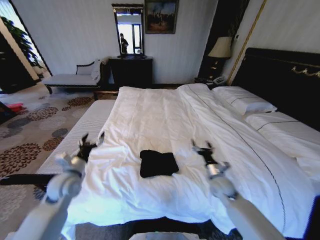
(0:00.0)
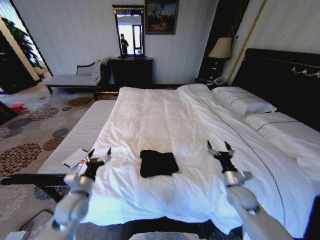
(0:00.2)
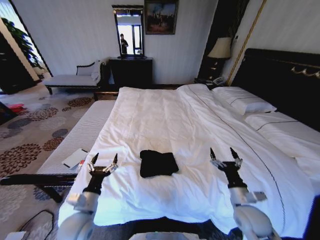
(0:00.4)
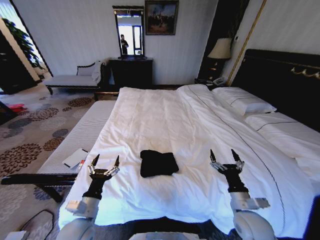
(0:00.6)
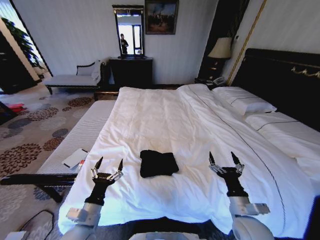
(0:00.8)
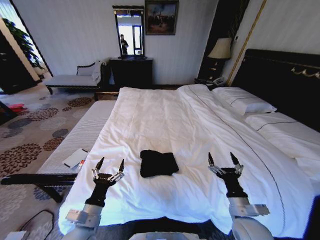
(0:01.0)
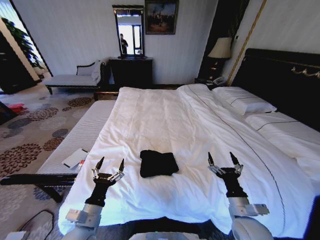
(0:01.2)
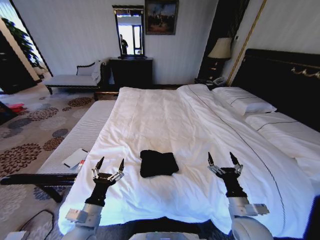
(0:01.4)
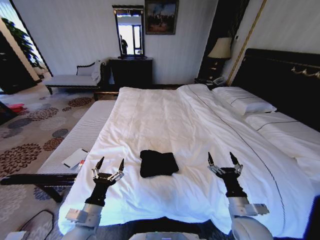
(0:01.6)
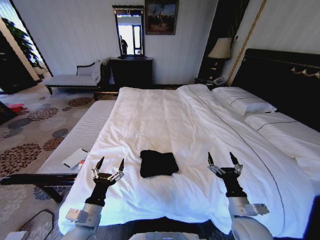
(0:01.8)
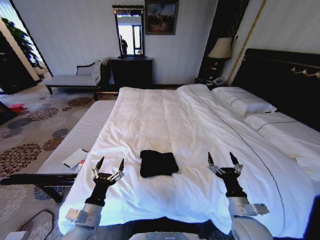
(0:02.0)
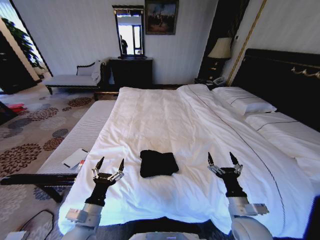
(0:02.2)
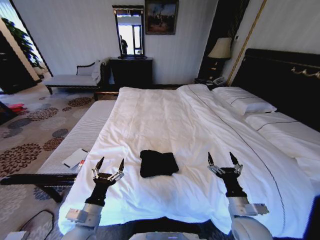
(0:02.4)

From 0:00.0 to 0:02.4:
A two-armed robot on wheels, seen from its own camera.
Task of the whole recording: Fold the clothes on the bed.
From 0:00.0 to 0:01.2: The right gripper heads backward, covering some 15 cm. Meanwhile the left gripper shifts approximately 20 cm backward and to the right.
From 0:01.2 to 0:02.4: Both grippers stay about where they are.

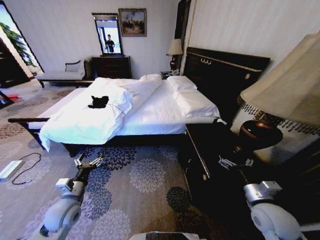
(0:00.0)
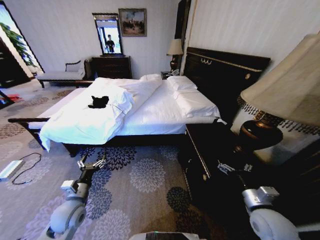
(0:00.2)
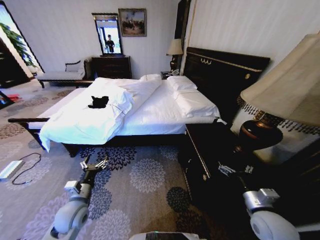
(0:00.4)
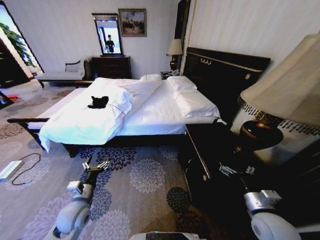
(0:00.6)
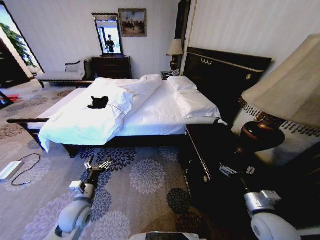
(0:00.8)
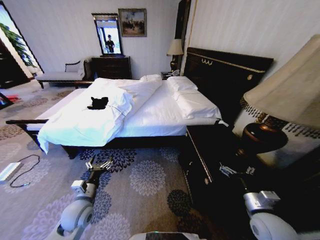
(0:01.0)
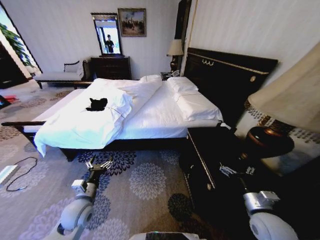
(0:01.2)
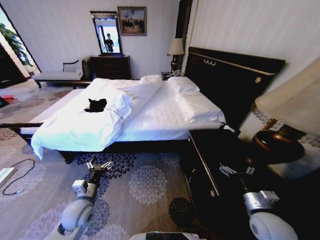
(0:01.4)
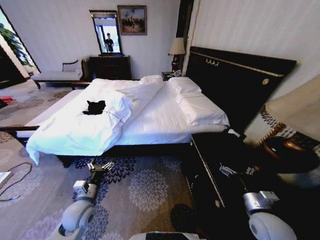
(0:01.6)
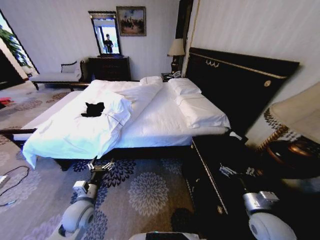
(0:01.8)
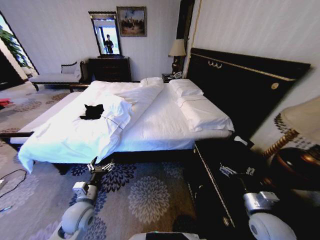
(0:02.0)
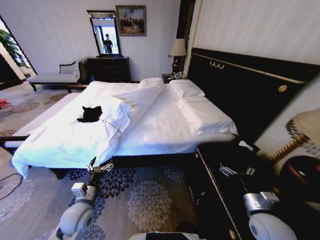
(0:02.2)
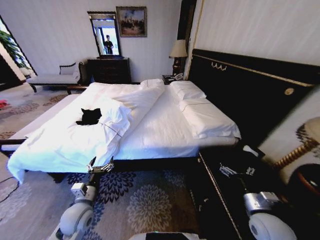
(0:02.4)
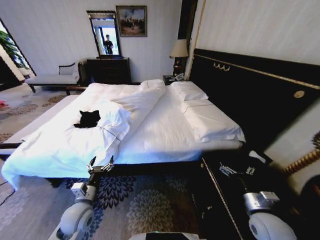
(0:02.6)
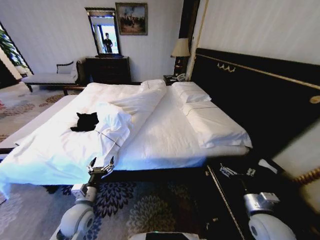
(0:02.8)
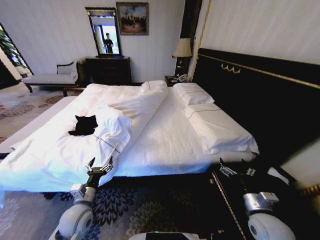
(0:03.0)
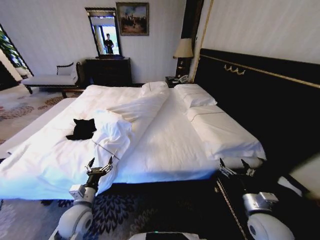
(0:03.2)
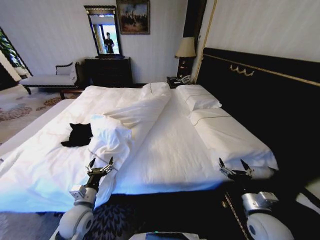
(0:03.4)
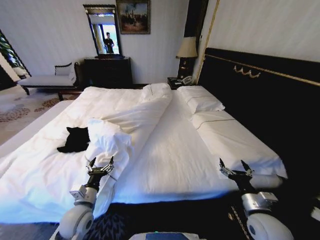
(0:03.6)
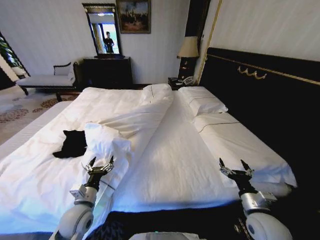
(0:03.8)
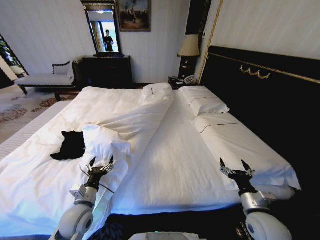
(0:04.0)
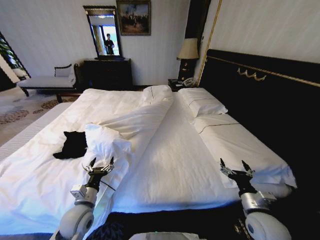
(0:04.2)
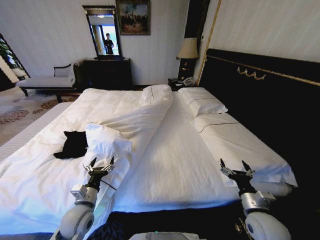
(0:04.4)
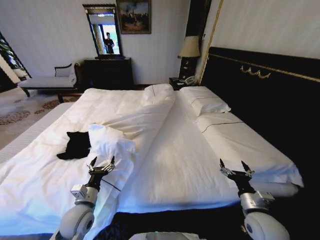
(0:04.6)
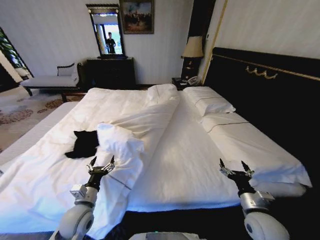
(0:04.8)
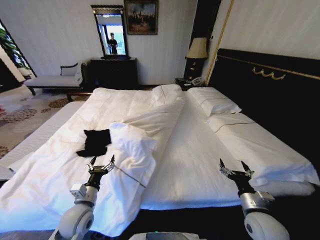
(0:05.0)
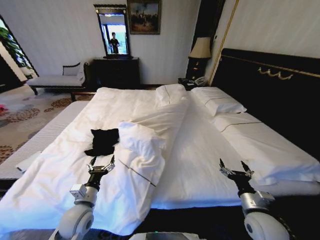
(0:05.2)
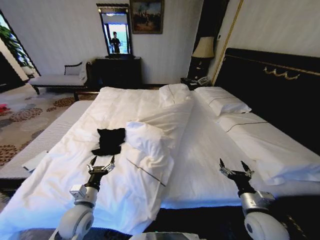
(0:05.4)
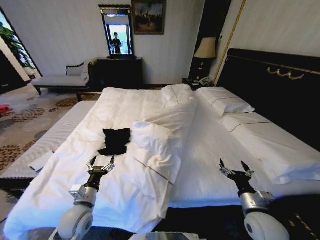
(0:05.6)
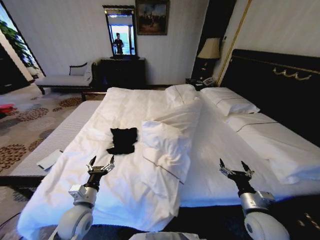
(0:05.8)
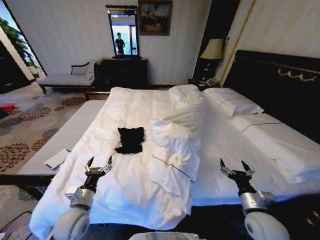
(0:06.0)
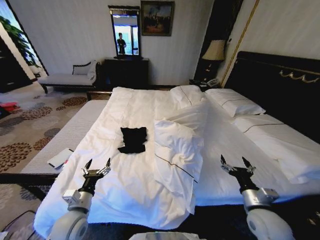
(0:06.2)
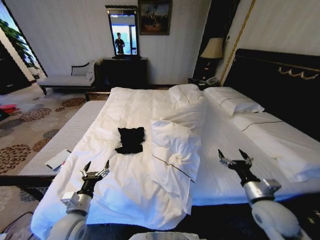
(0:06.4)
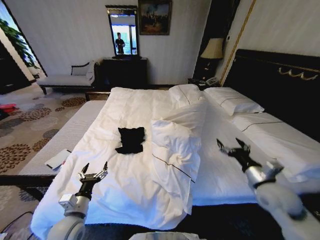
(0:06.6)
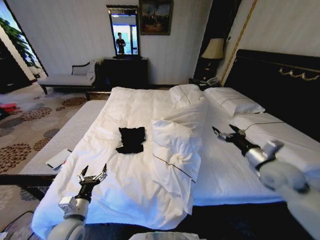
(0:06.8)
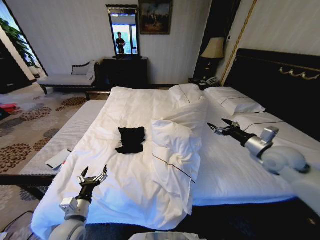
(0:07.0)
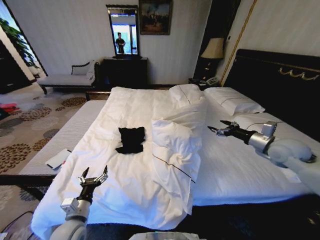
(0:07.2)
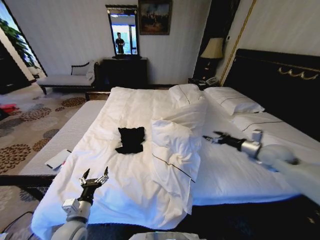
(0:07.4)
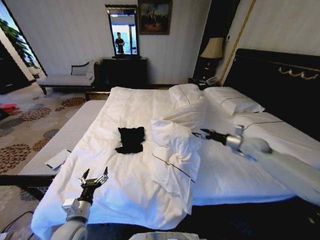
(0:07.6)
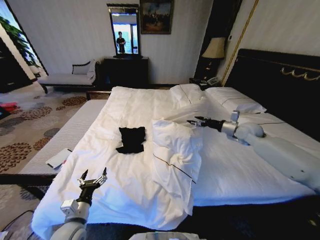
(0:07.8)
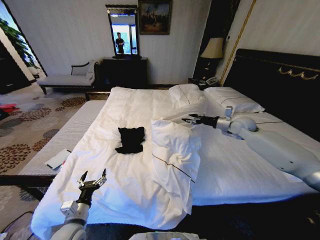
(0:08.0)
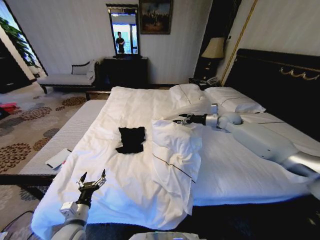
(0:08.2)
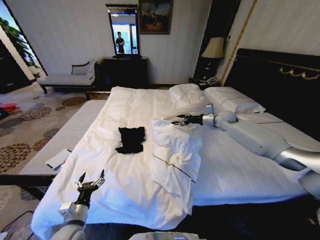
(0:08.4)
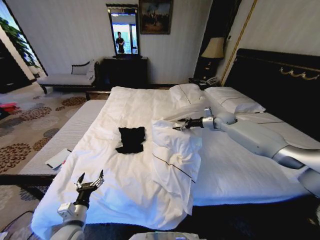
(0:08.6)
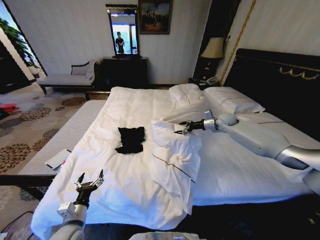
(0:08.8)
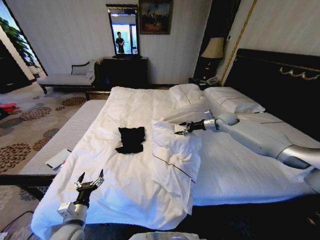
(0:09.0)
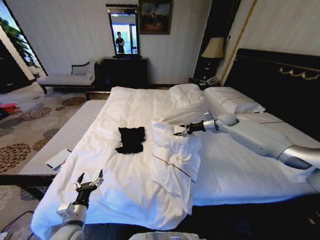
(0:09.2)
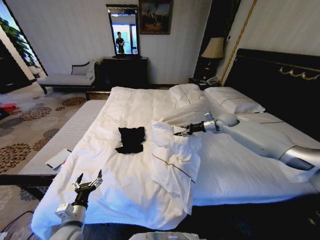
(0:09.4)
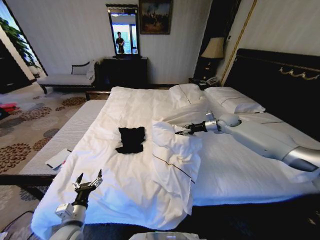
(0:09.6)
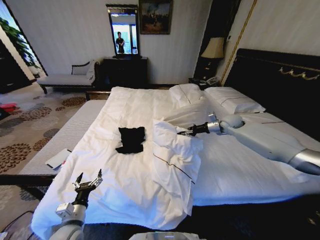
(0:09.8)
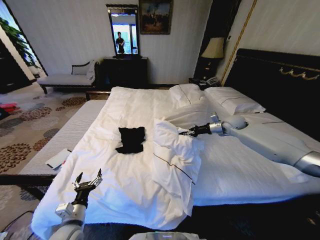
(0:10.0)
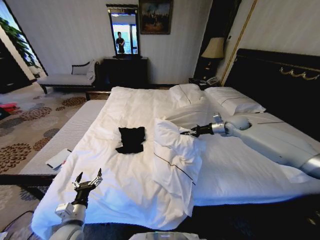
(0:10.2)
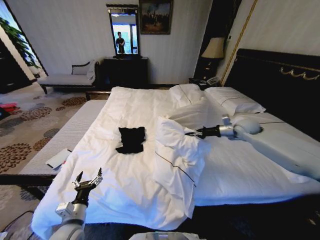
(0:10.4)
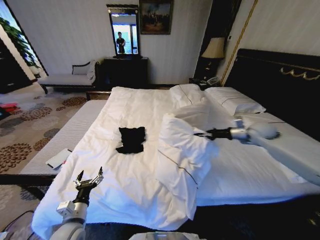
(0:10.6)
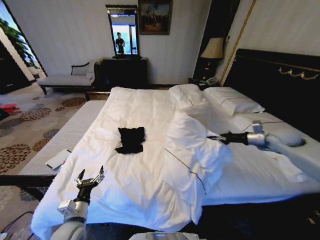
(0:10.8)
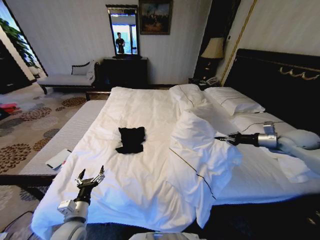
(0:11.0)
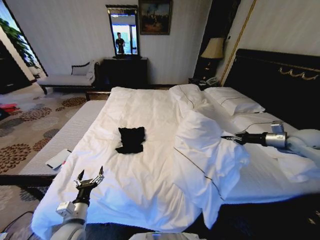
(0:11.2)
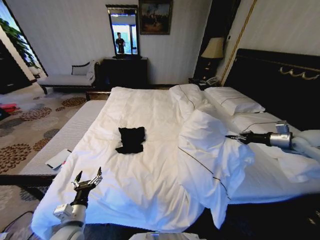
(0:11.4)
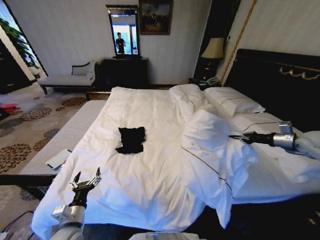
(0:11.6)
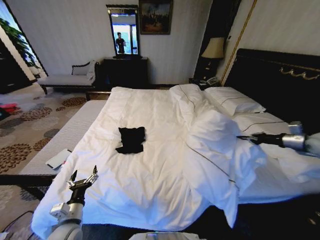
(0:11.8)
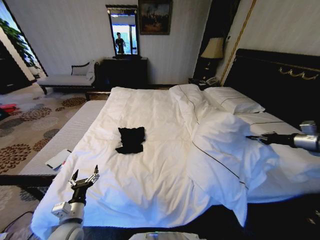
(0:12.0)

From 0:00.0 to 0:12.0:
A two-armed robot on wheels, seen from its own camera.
Task of the whole recording: Fold the clothes on the bed.
From 0:06.0 to 0:07.6: The right gripper is displaced forward by about 25 cm.
From 0:07.6 to 0:09.0: The right gripper goes roughly 15 cm forward and to the left.
From 0:09.0 to 0:10.4: The right gripper goes about 10 cm backward and to the right, and closes its fingers.
From 0:10.4 to 0:12.0: The right gripper goes some 25 cm to the right and backward.

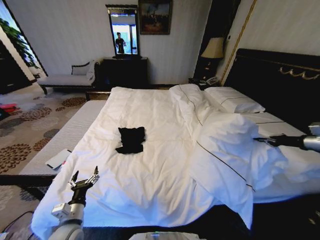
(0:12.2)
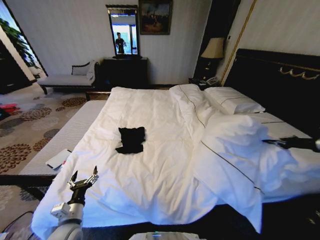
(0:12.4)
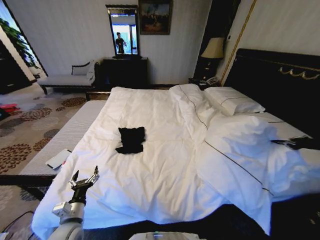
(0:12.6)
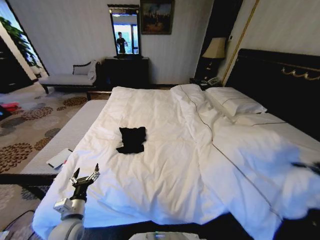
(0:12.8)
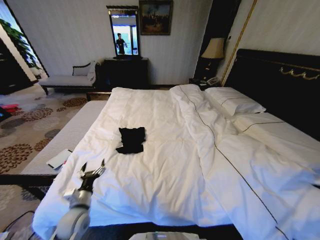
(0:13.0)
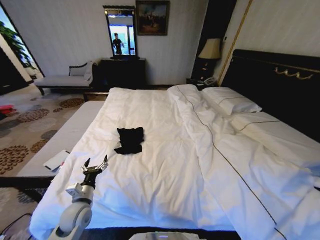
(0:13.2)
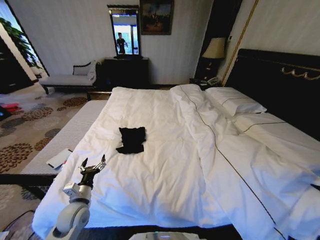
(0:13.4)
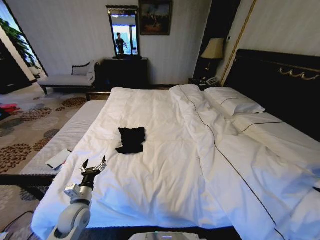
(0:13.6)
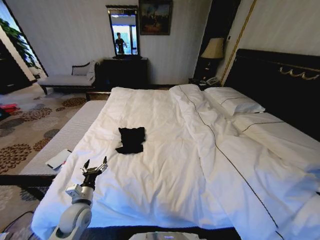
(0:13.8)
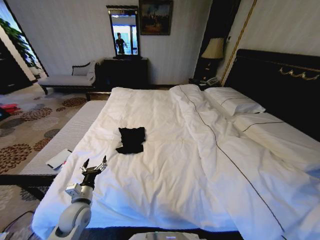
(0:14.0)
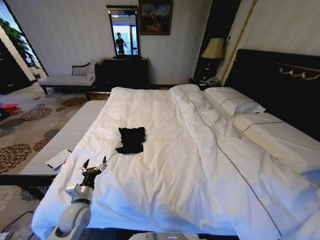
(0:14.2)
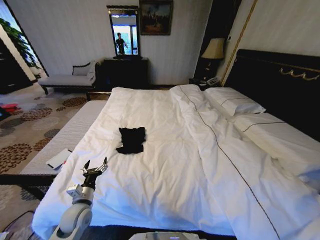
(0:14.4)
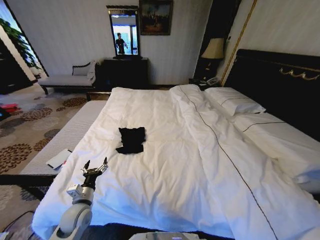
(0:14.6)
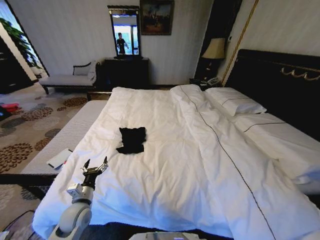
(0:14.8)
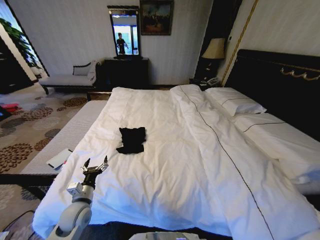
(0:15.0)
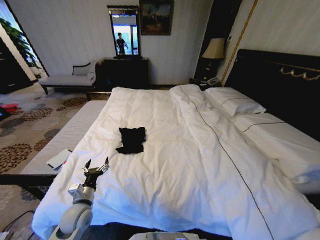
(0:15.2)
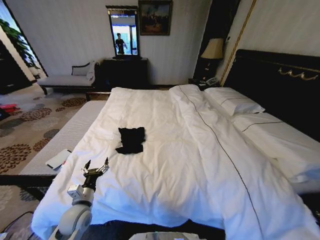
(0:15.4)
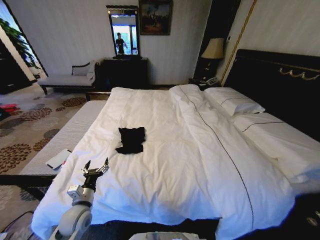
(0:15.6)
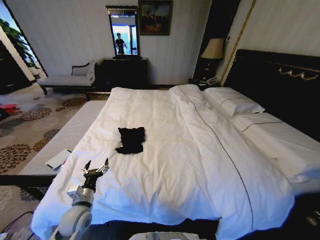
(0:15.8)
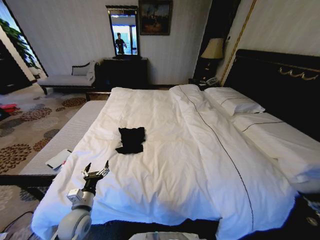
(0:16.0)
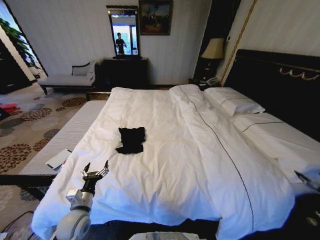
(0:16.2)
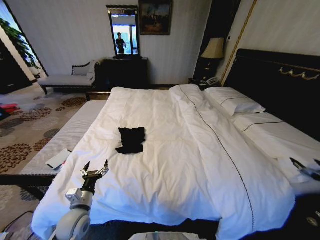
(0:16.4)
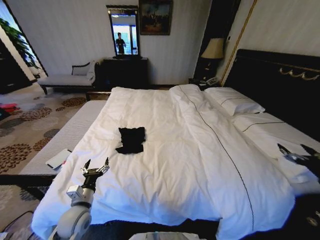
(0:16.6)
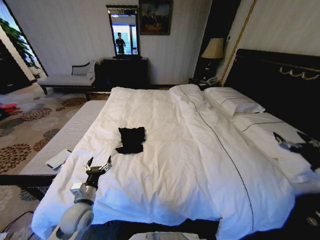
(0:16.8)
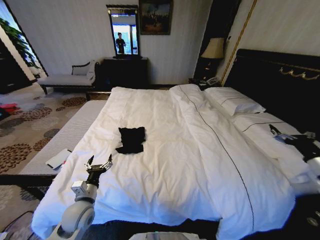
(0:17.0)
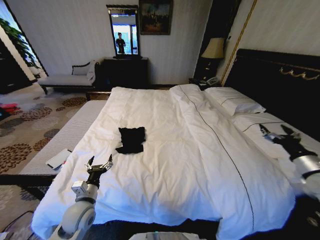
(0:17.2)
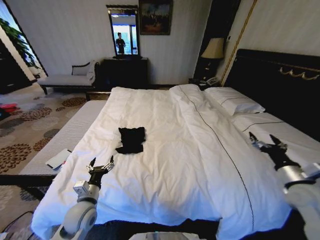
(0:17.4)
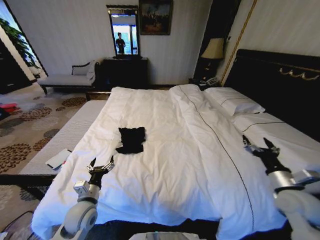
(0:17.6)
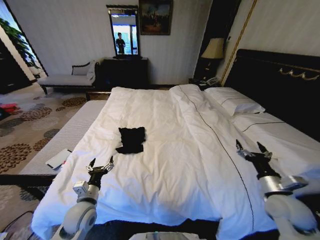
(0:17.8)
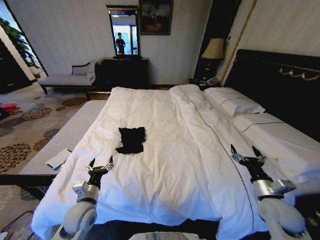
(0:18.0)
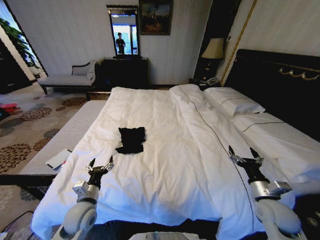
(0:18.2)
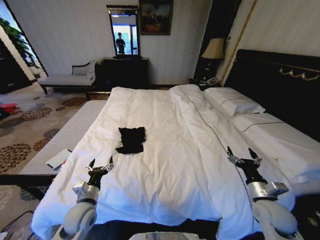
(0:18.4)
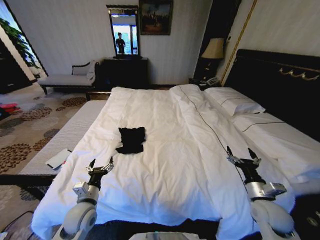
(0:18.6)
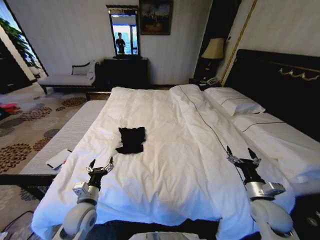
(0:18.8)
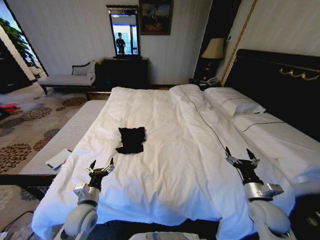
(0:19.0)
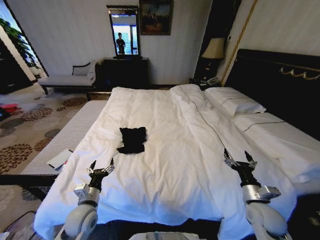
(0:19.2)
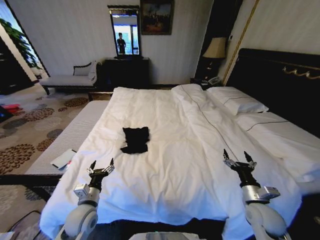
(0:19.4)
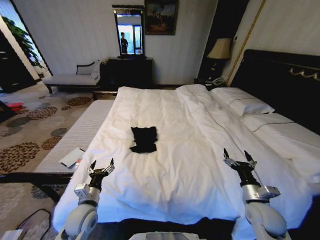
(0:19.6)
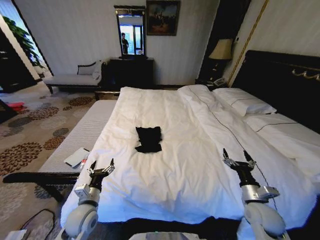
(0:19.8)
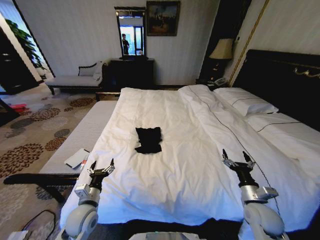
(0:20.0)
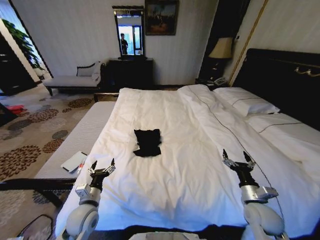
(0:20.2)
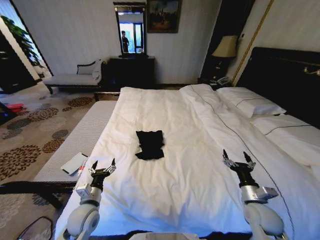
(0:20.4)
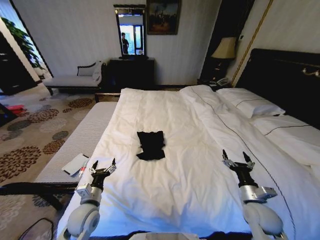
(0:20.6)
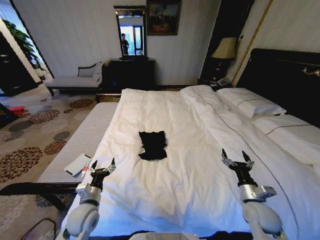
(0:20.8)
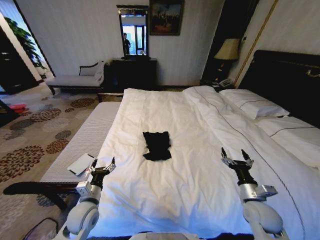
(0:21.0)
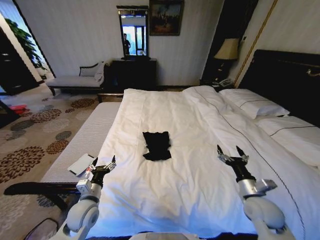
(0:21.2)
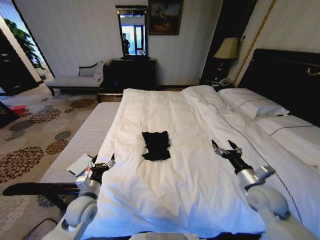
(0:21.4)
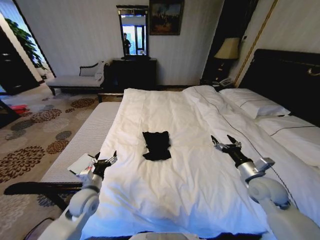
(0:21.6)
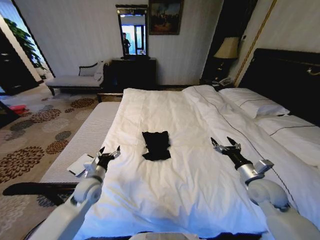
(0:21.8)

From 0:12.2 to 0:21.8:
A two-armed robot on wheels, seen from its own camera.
Task of the whole recording: Fold the clothes on the bed.
From 0:12.2 to 0:13.8: The right gripper travels backward by roughly 30 cm, while the left gripper shifts some 5 cm forward.
From 0:13.8 to 0:15.4: The right gripper shifts some 15 cm downward and backward.
From 0:15.4 to 0:17.0: The right gripper is displaced forward, to the left and upward by roughly 35 cm, and opens up.
From 0:17.0 to 0:18.6: The right gripper travels to the left and downward by approximately 20 cm.
From 0:20.2 to 0:21.8: The right gripper heads upward and forward, covering approximately 10 cm, while the left gripper travels forward by about 10 cm.
